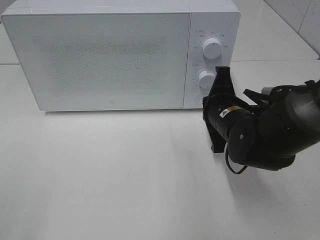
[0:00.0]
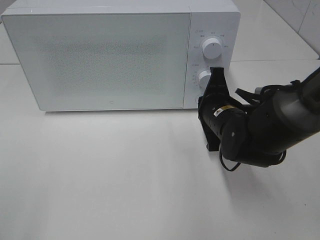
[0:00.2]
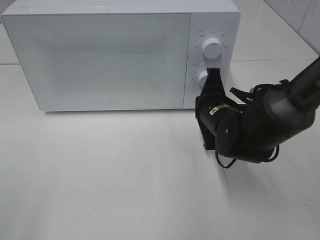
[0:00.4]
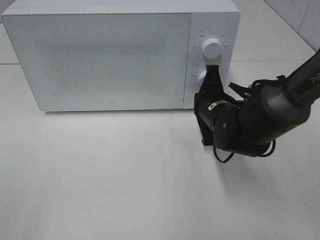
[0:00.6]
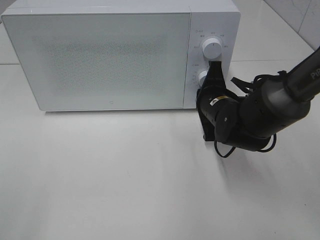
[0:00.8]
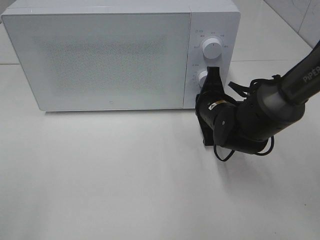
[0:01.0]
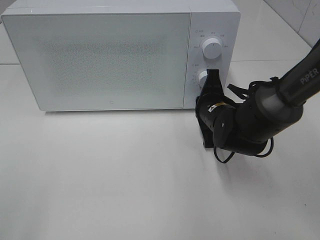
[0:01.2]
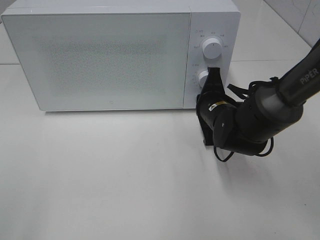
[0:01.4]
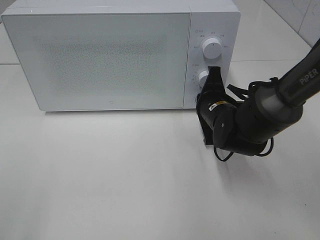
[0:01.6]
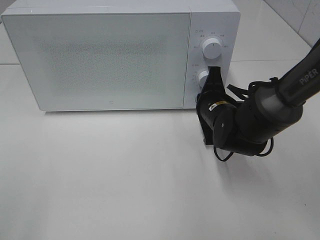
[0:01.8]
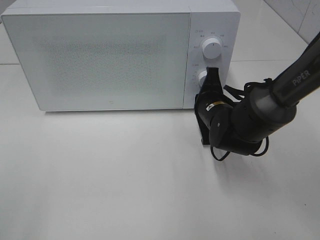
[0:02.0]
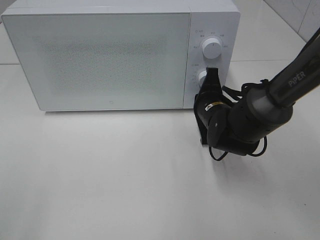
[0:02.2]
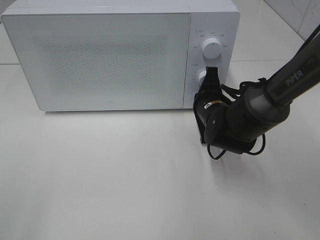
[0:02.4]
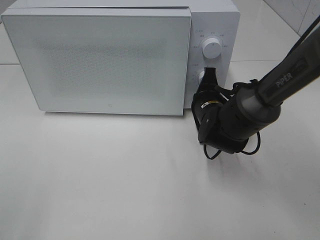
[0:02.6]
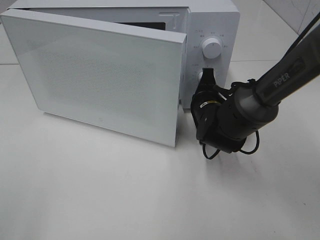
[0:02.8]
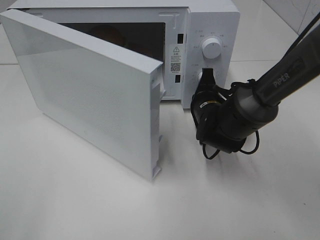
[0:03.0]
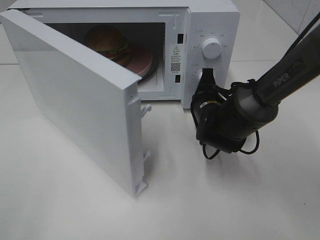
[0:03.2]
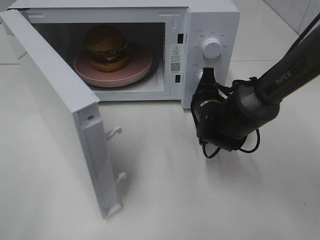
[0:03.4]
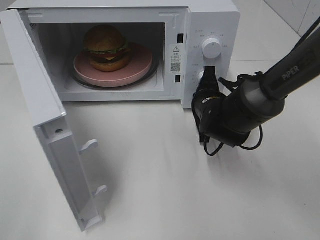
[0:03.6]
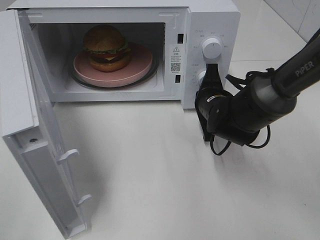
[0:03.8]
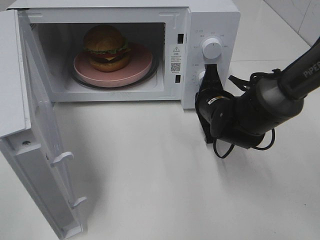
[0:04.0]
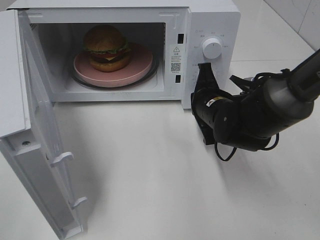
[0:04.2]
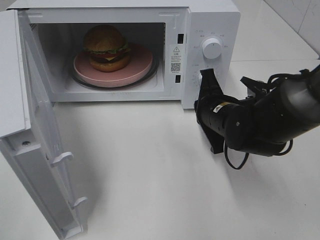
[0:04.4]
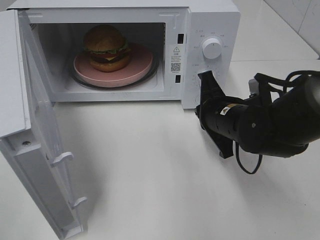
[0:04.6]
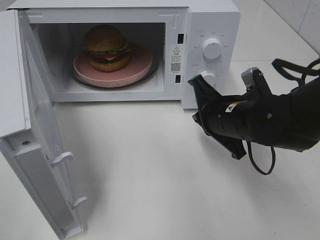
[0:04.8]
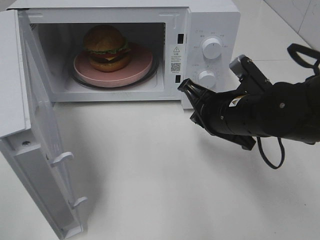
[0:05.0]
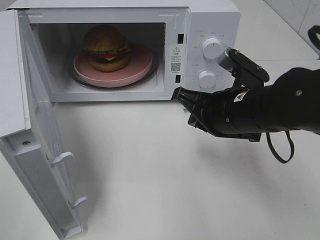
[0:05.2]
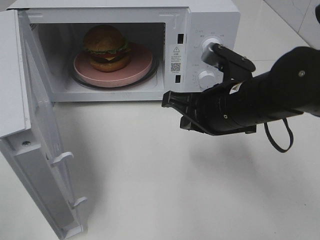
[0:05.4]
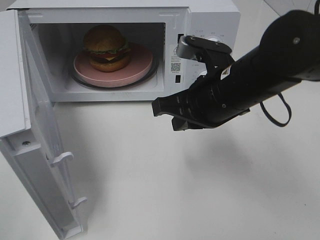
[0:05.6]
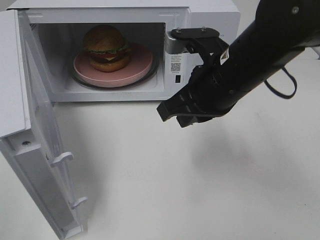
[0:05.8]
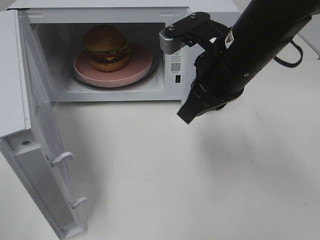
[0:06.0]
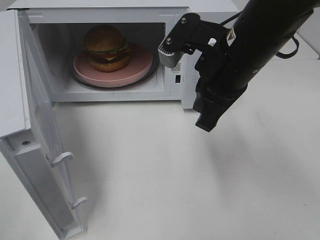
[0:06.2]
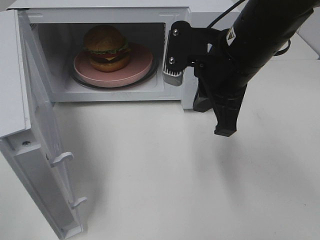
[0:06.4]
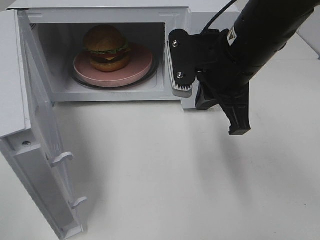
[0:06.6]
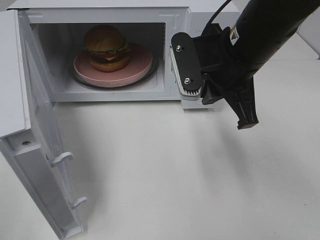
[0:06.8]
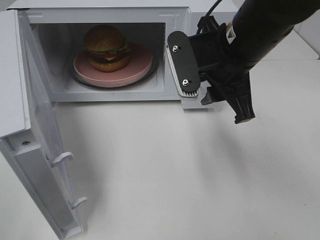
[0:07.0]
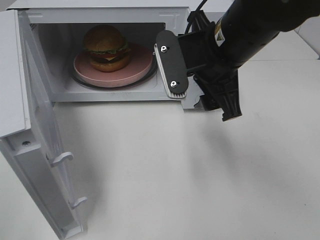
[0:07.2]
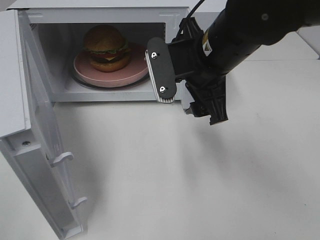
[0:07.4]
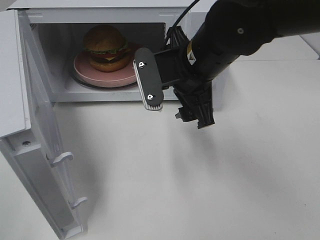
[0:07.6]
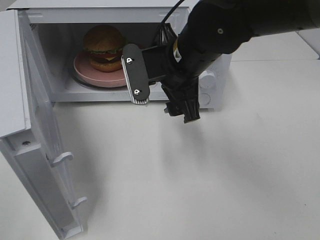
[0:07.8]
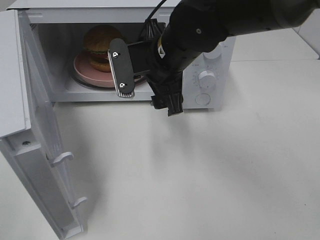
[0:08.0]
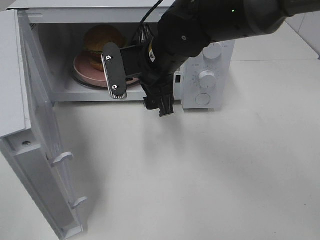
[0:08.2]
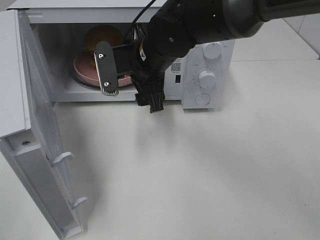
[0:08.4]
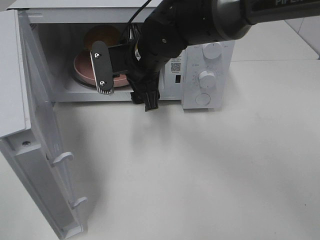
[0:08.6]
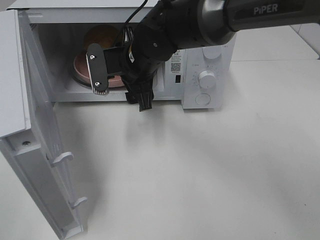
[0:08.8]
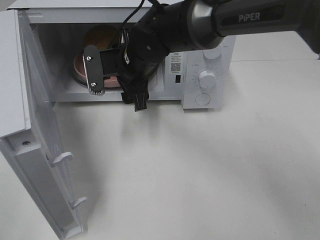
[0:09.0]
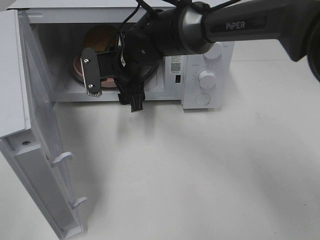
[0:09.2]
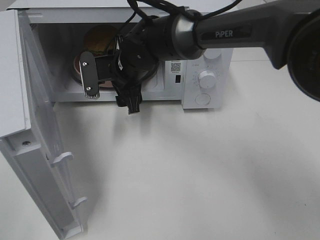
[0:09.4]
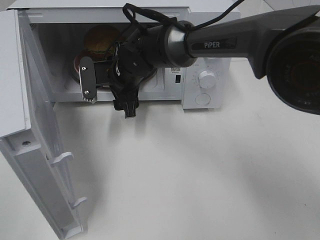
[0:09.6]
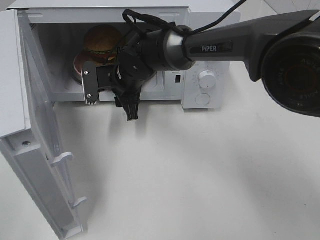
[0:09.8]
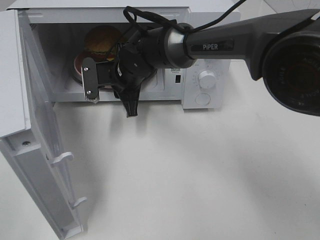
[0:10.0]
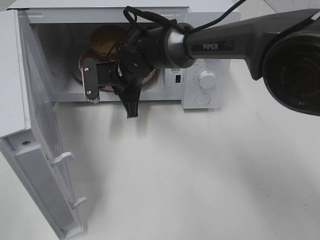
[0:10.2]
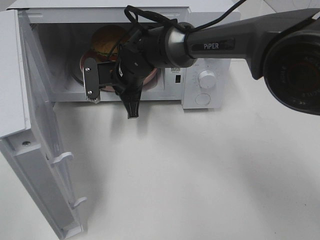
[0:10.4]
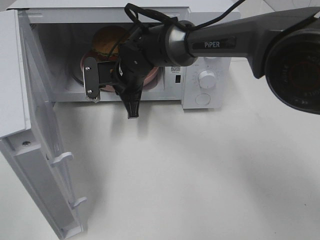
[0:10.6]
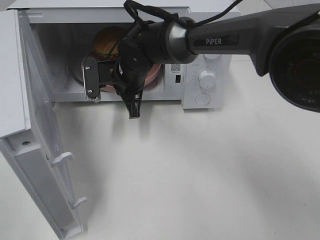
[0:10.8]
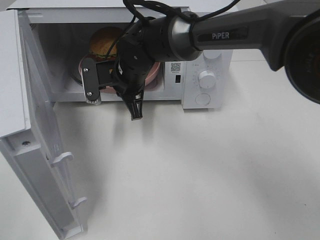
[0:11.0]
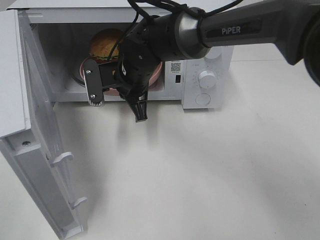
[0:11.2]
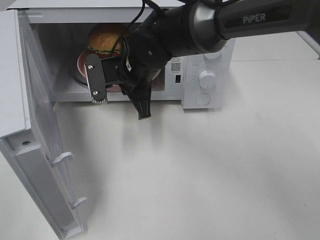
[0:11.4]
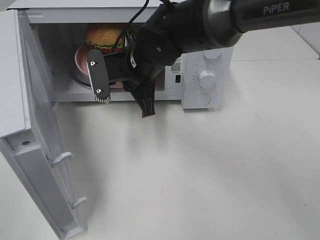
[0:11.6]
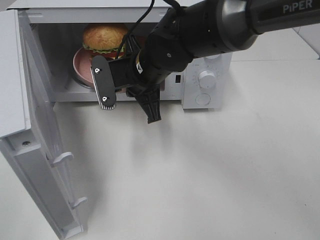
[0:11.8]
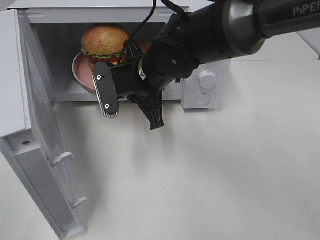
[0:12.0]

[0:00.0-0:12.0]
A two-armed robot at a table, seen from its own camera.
Task of the whole recording: Heat the burger.
Step, 0:00.0 to 0:04.0: Right hand: press the switch.
Step, 0:04.2 to 0:10.2: Right hand: grab the plate with the hamburger.
0:00.0 to 0:01.6: The grippers move only a little.
0:03.0 to 0:04.4: The right gripper moves about 5 cm.
0:04.4 to 0:06.0: The right gripper is displaced upward by roughly 15 cm.
0:06.0 to 0:07.6: The right gripper changes place by roughly 5 cm, and opens its fingers.
0:07.6 to 0:09.0: The right gripper moves to the left, forward and downward, about 15 cm.
0:09.0 to 0:10.4: The right gripper ends up approximately 5 cm from where it was, and closes up.
0:10.4 to 0:12.0: The right gripper travels backward by about 10 cm.

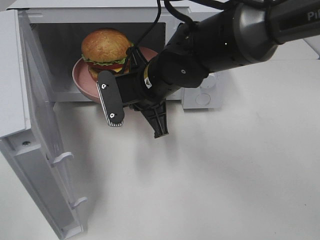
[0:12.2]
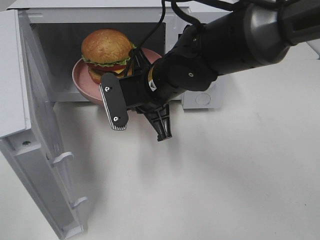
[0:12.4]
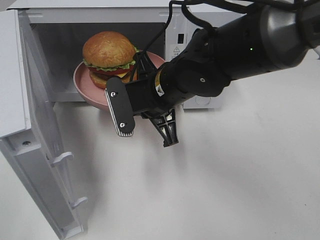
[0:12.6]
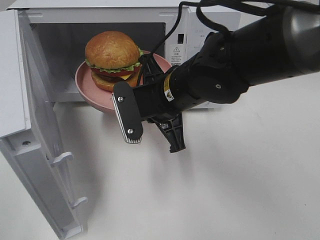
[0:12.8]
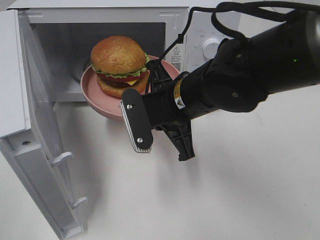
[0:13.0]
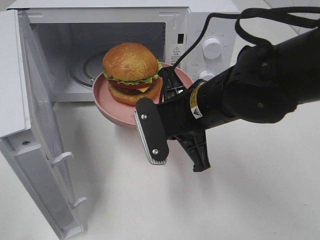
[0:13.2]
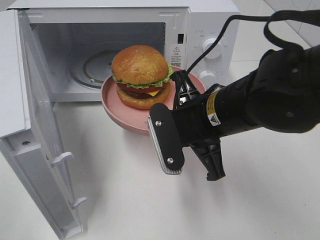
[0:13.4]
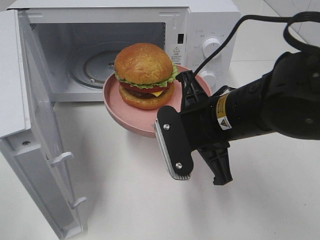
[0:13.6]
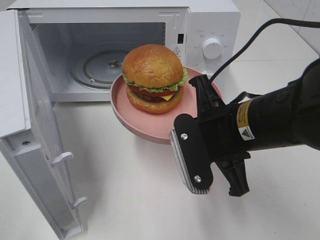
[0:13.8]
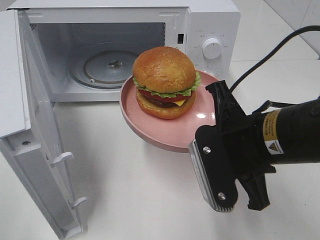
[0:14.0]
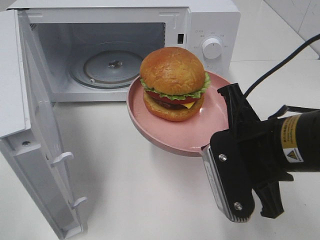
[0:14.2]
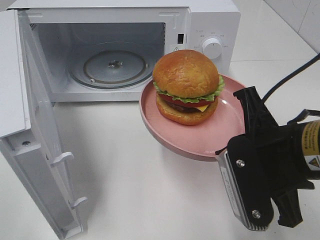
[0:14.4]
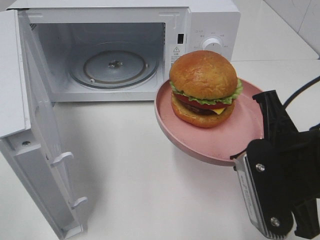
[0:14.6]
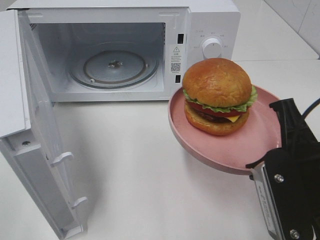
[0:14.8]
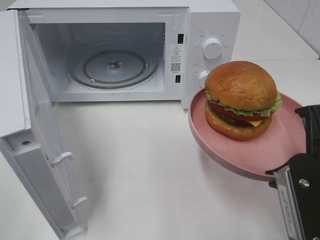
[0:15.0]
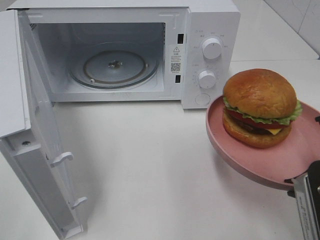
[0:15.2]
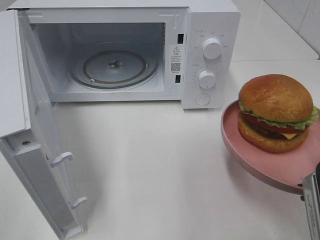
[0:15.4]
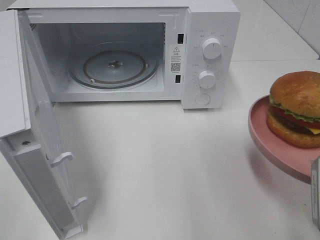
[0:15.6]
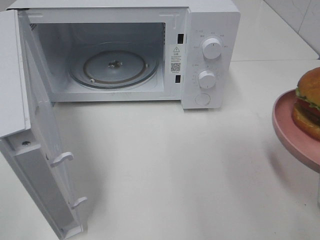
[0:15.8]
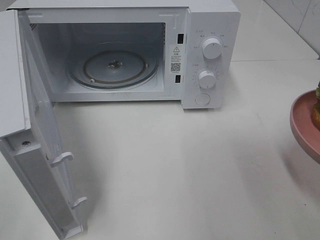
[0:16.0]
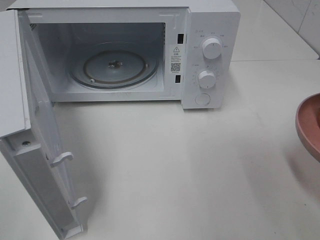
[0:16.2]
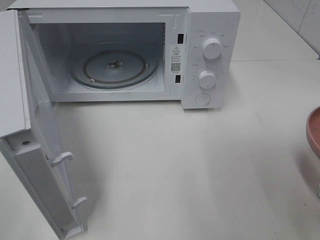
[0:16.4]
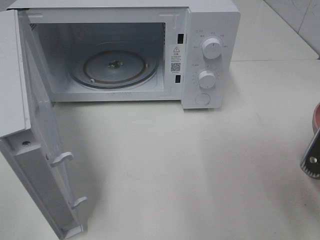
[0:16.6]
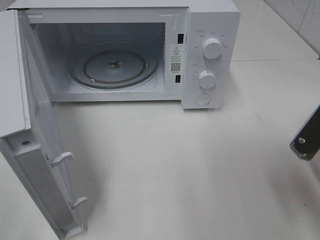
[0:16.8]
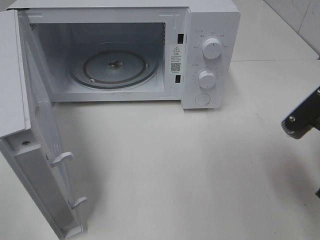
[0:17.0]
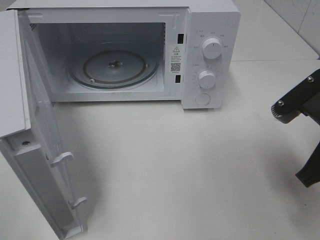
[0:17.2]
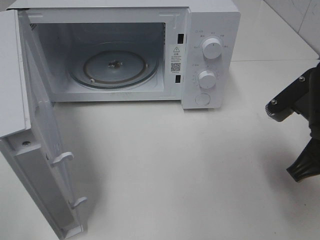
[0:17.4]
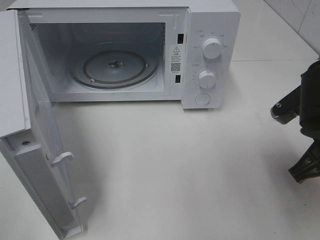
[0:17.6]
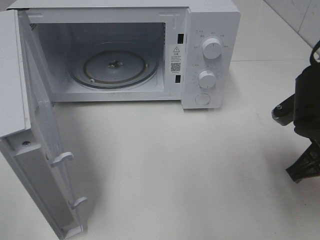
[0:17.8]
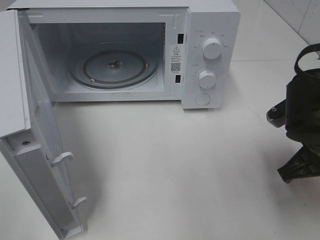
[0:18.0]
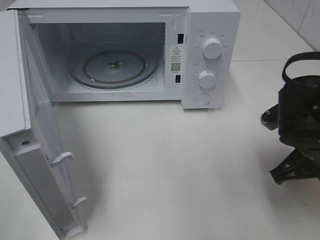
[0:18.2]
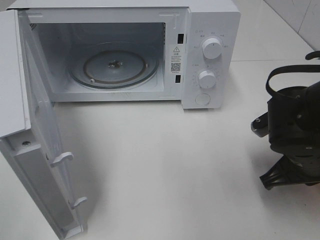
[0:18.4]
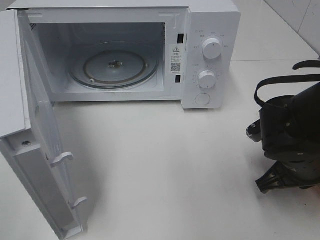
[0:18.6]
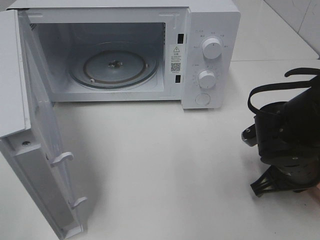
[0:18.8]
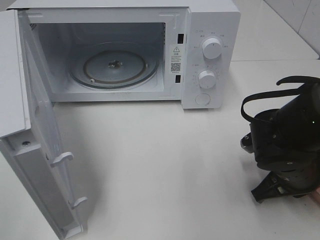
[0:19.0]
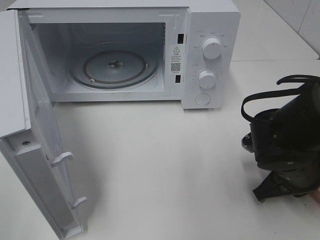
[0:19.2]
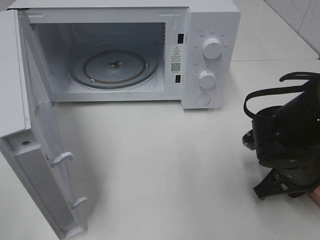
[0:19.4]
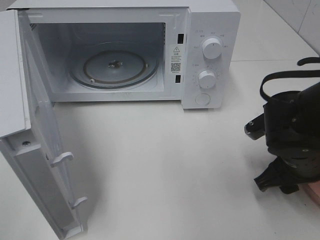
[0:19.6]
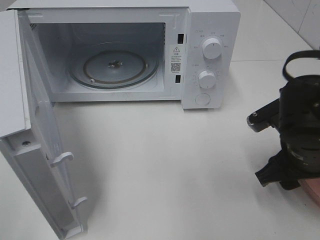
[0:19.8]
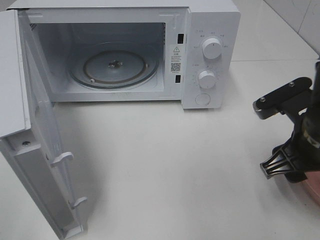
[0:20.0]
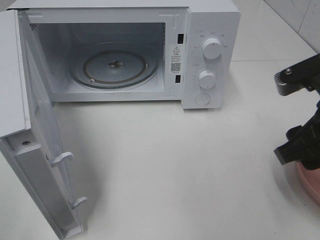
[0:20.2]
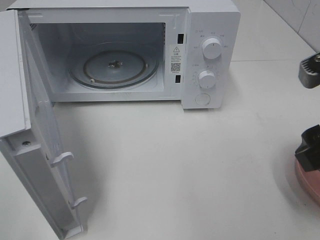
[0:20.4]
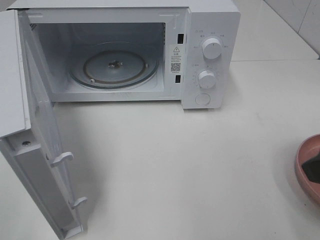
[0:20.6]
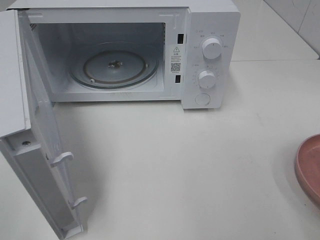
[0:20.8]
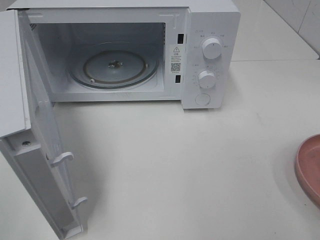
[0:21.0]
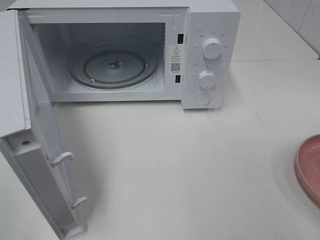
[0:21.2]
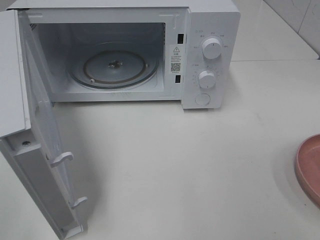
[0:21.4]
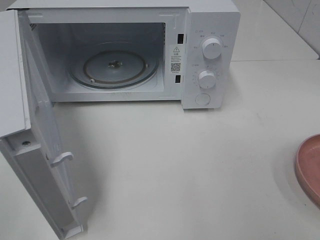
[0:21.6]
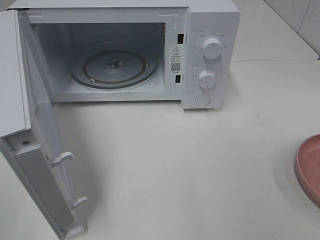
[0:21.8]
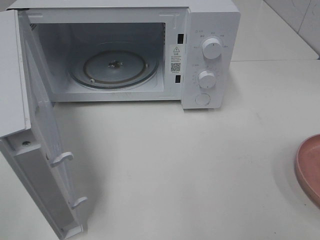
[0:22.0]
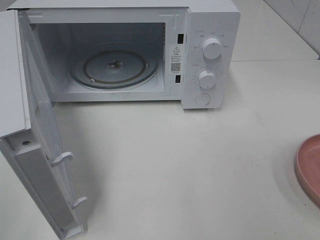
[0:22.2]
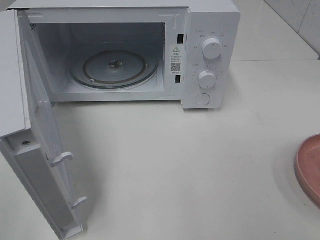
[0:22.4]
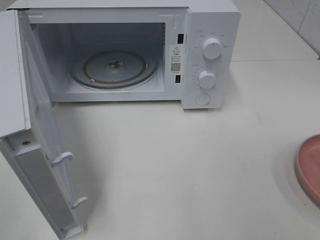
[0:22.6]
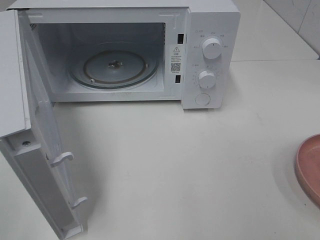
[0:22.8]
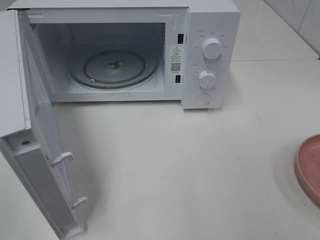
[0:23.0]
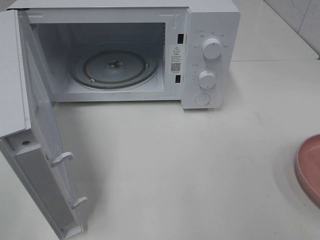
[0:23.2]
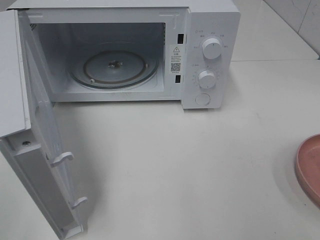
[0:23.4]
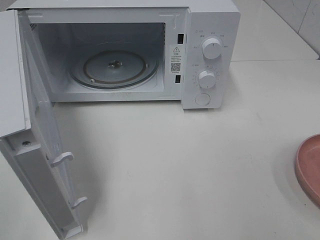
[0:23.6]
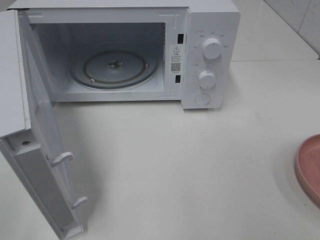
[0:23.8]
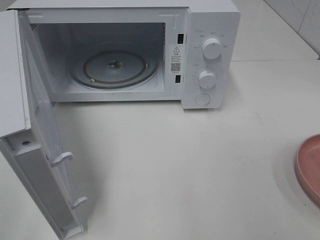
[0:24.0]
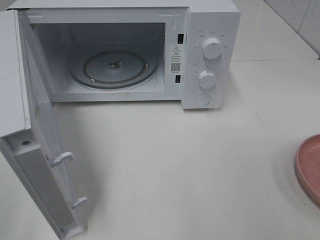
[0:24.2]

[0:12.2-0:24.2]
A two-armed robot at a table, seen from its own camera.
Task of the whole recording: Heat the burger.
Step, 0:12.2 to 0:19.4: Right hand: place the plate on the table.
0:12.2 to 0:13.8: The right gripper heads backward and to the right, covering some 15 cm.
0:13.8 to 0:15.2: The right gripper moves to the right and backward, roughly 15 cm.
0:16.6 to 0:18.2: The right gripper shifts approximately 10 cm forward and downward.
0:18.2 to 0:19.8: The right gripper opens.
0:19.8 to 0:21.2: The right gripper heads upward, backward and to the right, covering roughly 25 cm.
